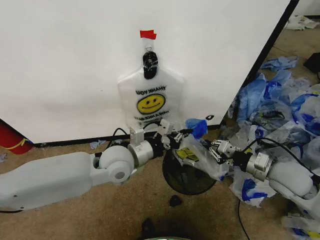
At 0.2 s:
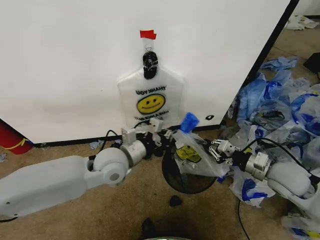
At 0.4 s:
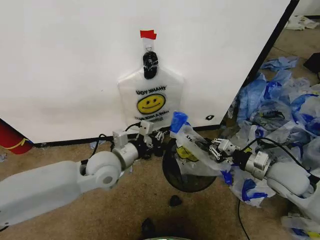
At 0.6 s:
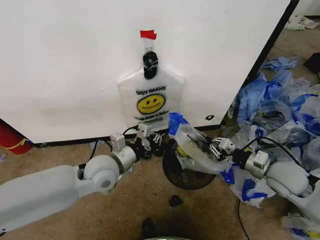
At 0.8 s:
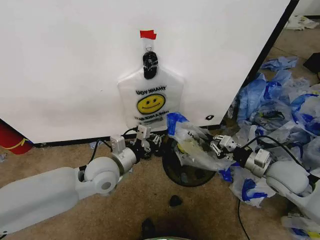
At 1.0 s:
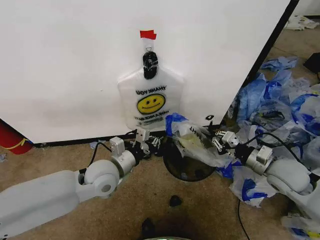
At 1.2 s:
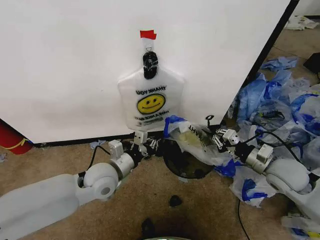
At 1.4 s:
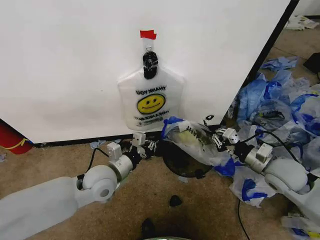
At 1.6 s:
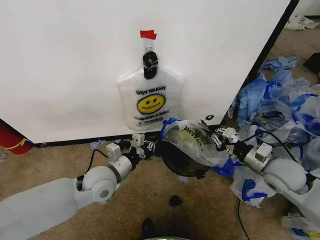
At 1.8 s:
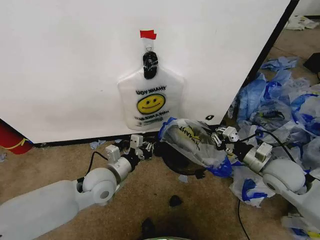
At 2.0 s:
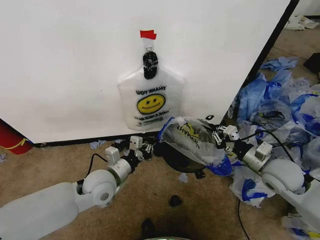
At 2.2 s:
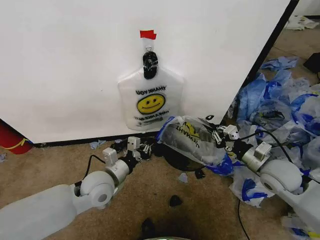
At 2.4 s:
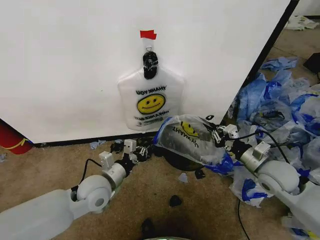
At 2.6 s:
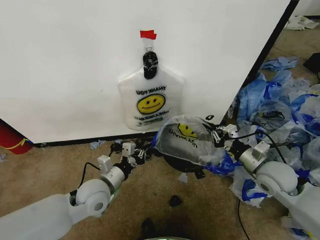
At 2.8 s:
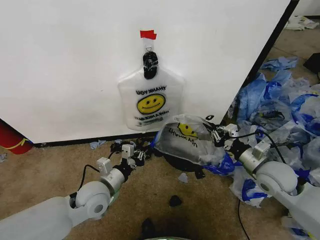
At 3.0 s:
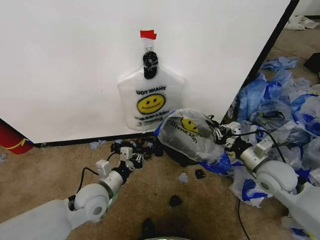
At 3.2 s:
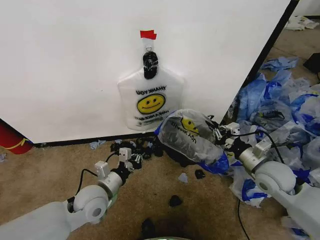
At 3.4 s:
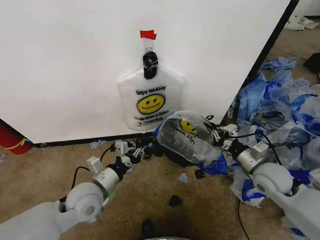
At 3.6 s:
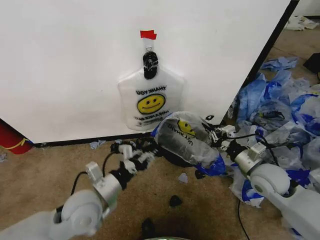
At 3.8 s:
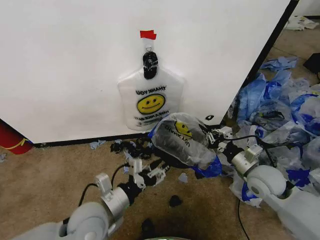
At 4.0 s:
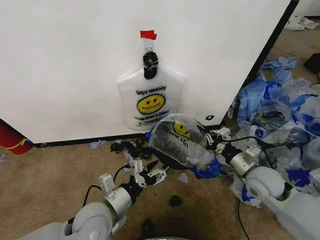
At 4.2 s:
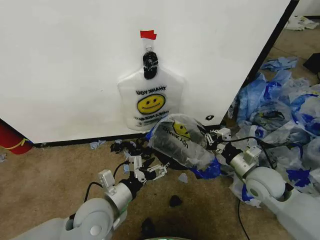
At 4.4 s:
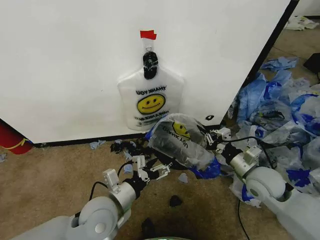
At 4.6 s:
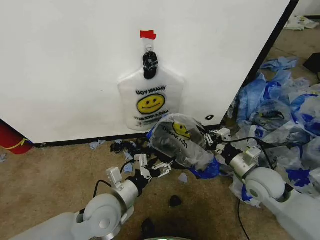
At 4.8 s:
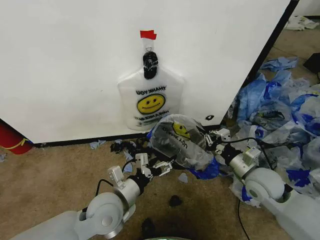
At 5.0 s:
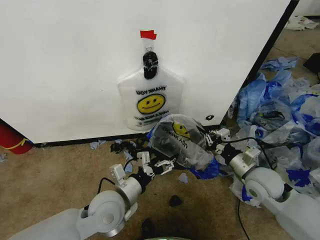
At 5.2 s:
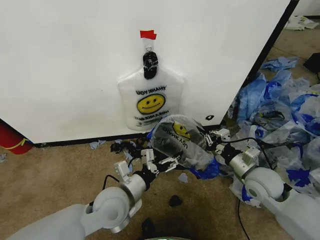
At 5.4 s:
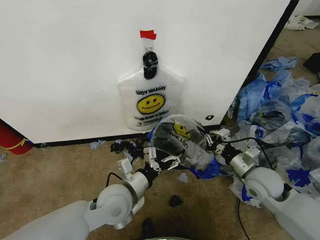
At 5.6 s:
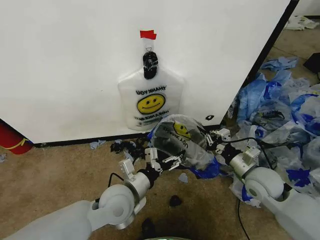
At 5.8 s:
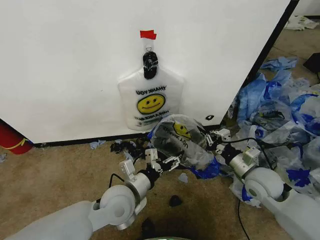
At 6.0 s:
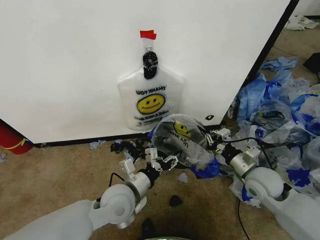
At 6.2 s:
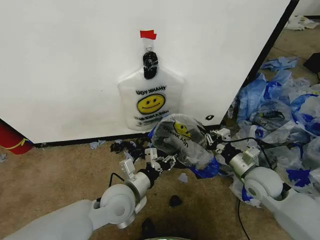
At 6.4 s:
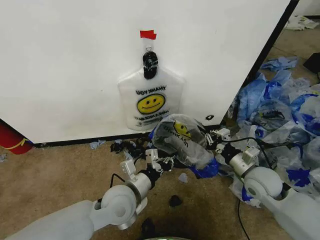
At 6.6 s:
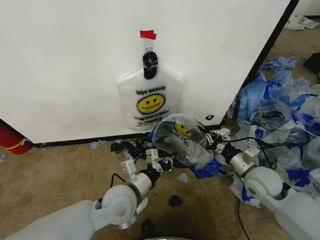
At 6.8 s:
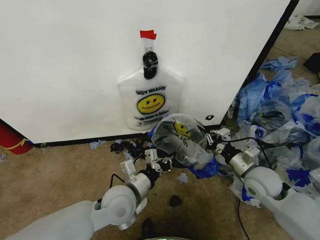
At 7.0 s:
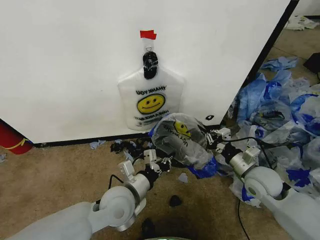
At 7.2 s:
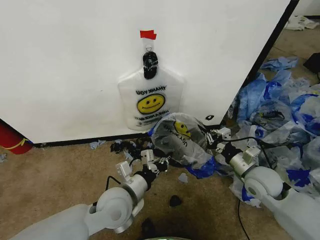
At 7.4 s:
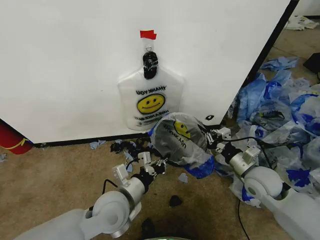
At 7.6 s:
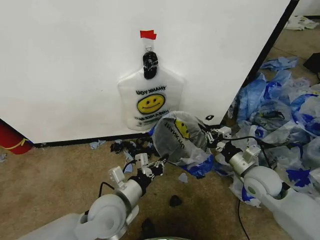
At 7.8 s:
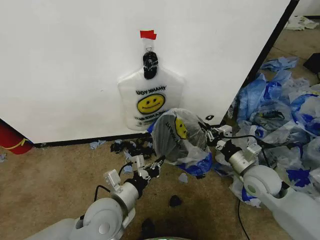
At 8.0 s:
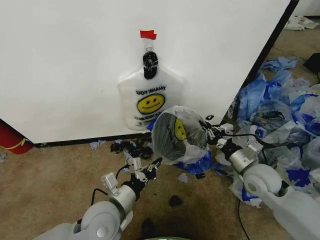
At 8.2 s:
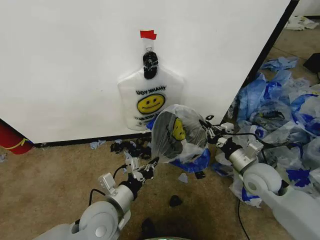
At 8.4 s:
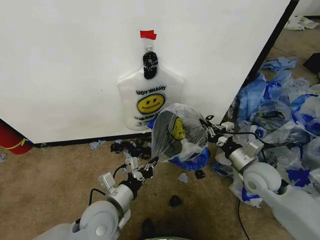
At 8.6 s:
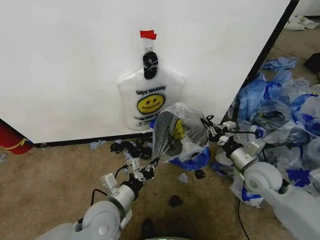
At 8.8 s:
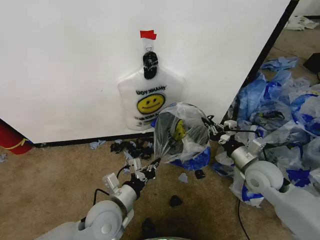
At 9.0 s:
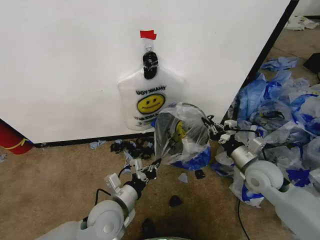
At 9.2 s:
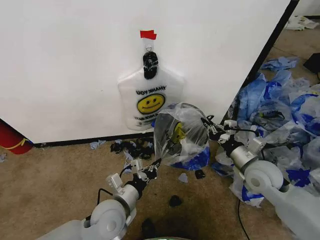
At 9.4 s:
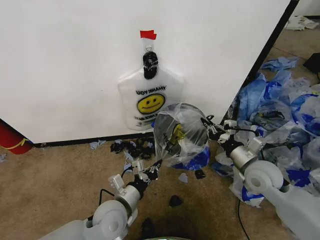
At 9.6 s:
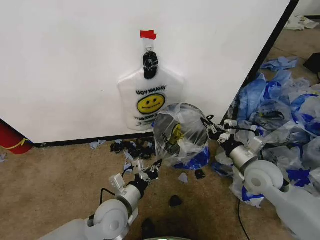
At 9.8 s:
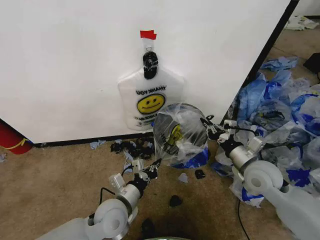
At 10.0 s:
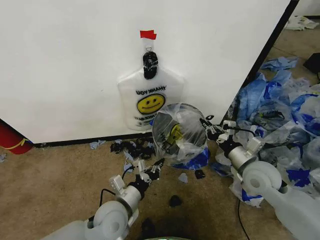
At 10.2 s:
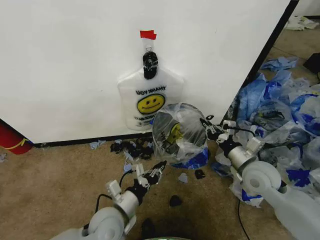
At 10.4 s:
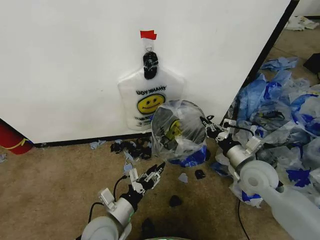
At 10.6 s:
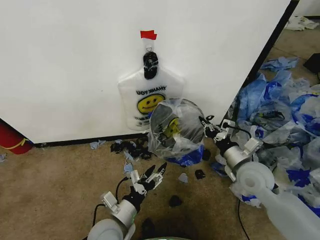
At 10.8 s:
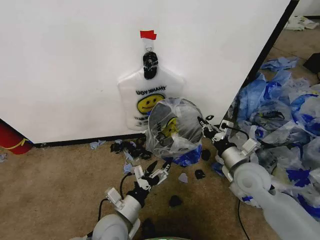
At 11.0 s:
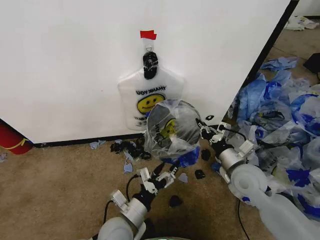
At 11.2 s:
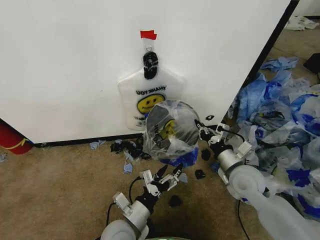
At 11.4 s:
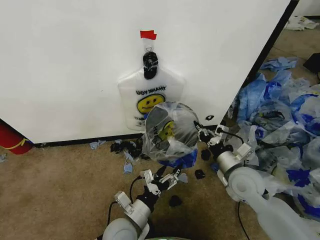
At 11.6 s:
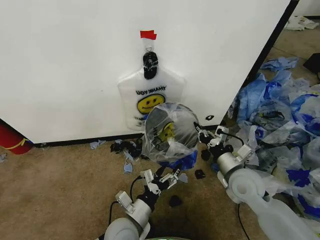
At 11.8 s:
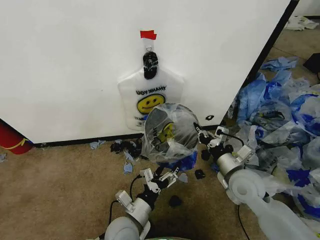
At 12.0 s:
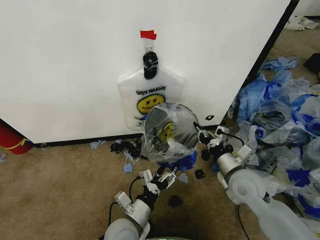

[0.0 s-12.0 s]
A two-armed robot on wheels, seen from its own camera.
Task of the whole recording: Pick up the garbage bag from the wall and place it over the trash bin.
0.0 to 1.6 s: The left gripper goes roughly 10 cm downward and to the left.
1.6 to 3.0 s: The left gripper ends up roughly 5 cm from where it was.
3.0 to 4.4 s: The left gripper travels backward by roughly 5 cm, and opens.
4.4 to 6.0 s: The left gripper ends up some 5 cm from where it was, and closes.
6.0 to 7.6 s: The left gripper closes.
7.6 to 9.0 s: The grippers make only small movements.
9.0 to 10.4 s: The left gripper opens.
10.4 to 12.0 s: The left gripper moves to the right, approximately 5 cm.

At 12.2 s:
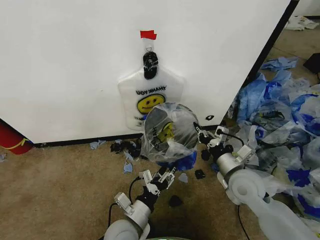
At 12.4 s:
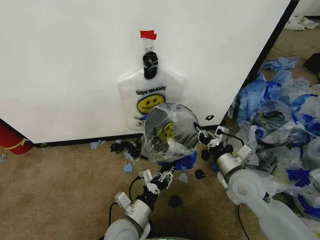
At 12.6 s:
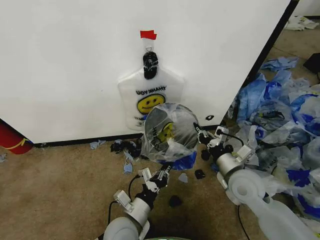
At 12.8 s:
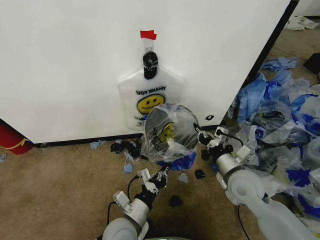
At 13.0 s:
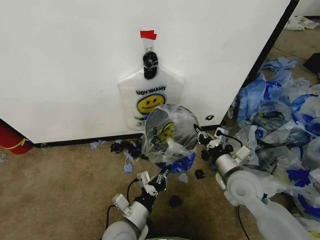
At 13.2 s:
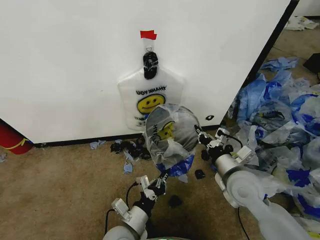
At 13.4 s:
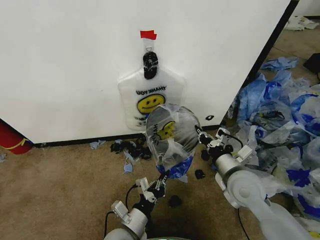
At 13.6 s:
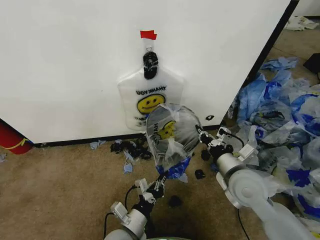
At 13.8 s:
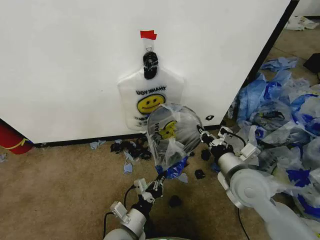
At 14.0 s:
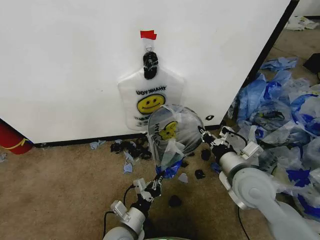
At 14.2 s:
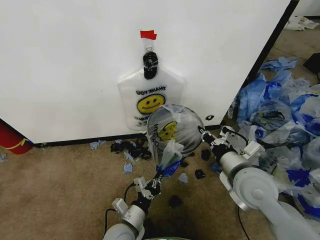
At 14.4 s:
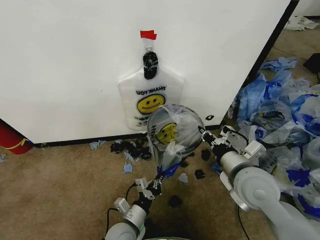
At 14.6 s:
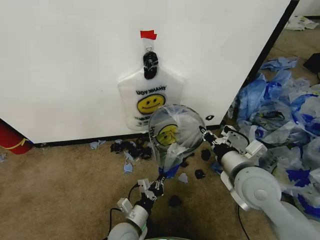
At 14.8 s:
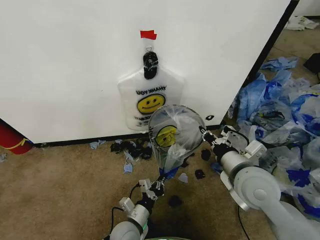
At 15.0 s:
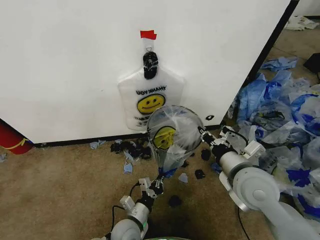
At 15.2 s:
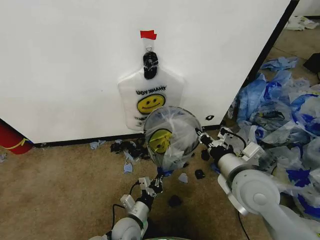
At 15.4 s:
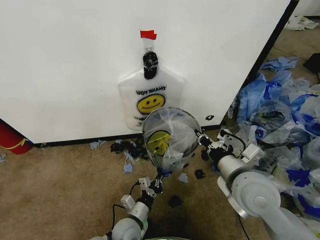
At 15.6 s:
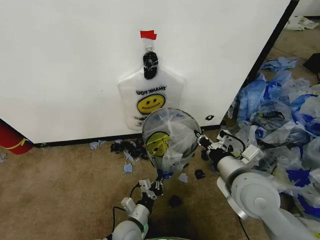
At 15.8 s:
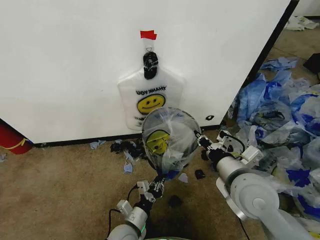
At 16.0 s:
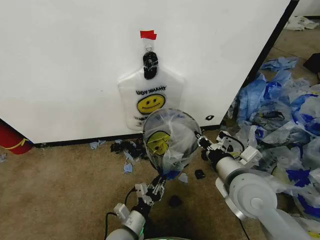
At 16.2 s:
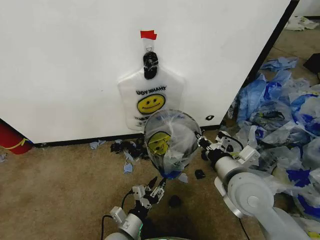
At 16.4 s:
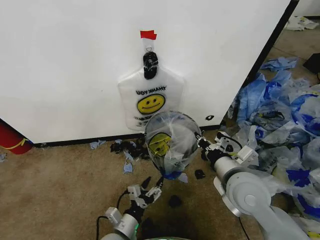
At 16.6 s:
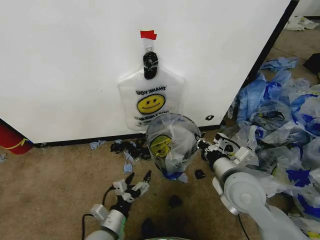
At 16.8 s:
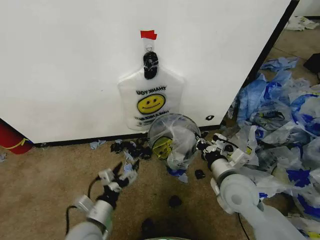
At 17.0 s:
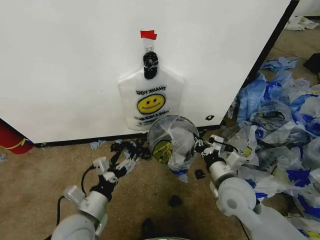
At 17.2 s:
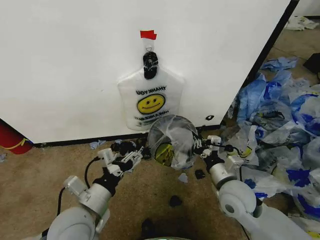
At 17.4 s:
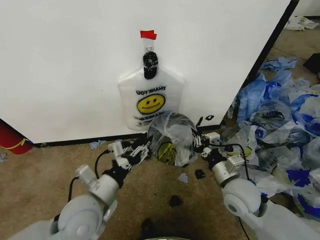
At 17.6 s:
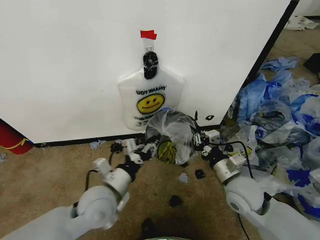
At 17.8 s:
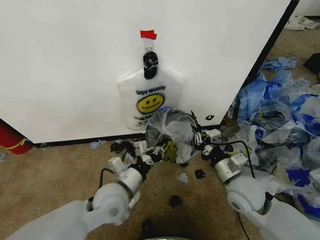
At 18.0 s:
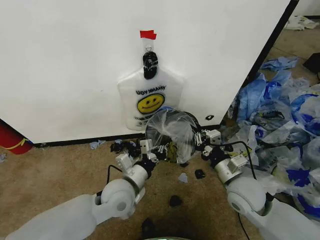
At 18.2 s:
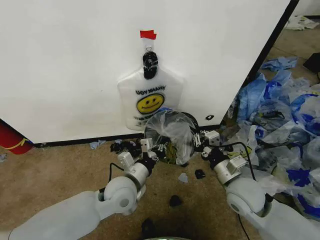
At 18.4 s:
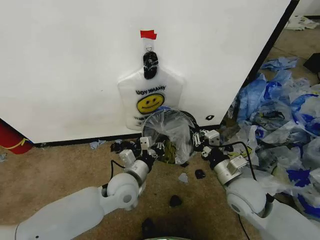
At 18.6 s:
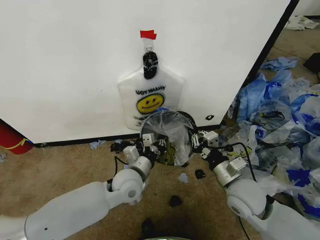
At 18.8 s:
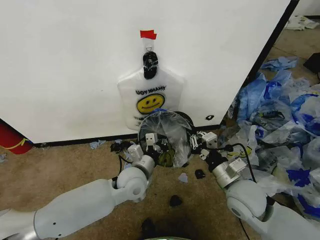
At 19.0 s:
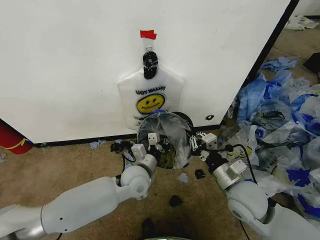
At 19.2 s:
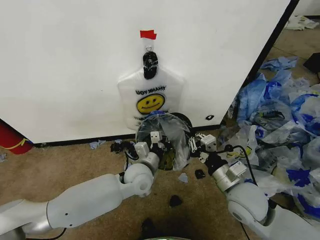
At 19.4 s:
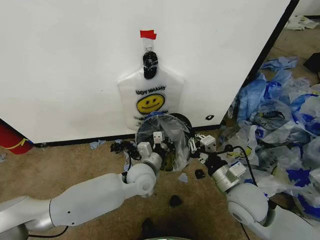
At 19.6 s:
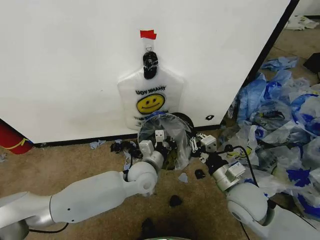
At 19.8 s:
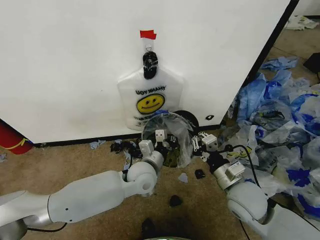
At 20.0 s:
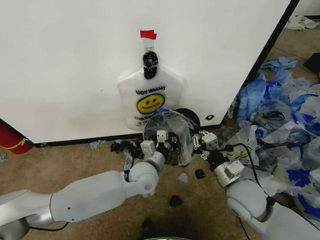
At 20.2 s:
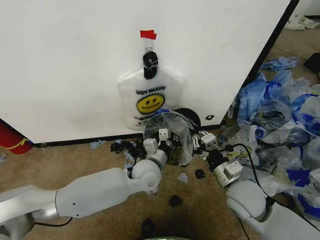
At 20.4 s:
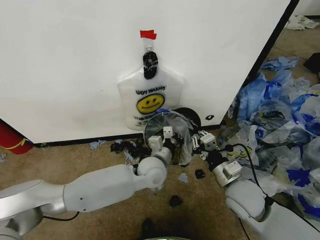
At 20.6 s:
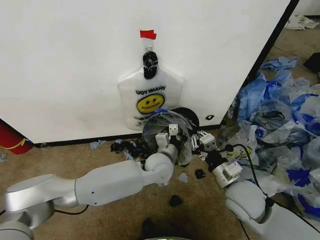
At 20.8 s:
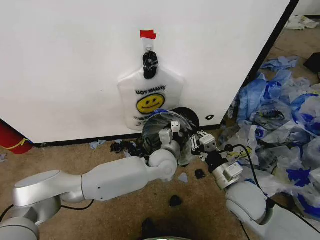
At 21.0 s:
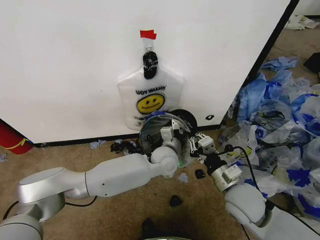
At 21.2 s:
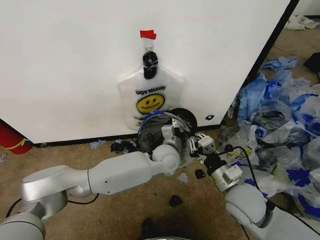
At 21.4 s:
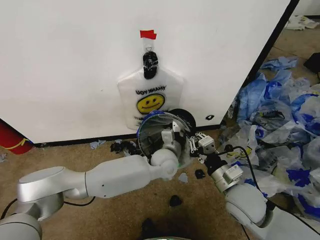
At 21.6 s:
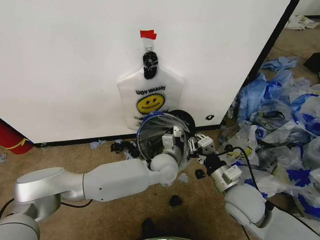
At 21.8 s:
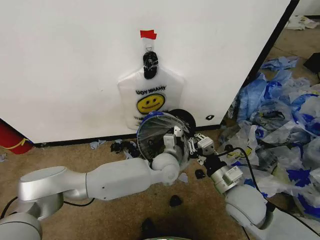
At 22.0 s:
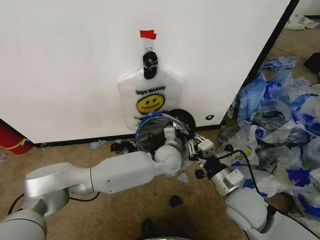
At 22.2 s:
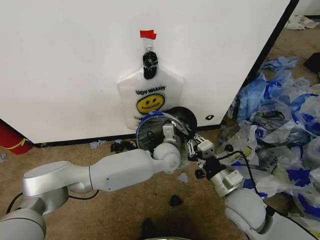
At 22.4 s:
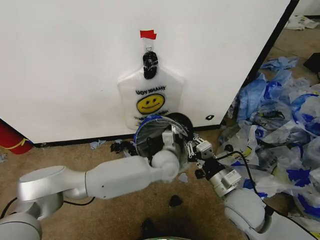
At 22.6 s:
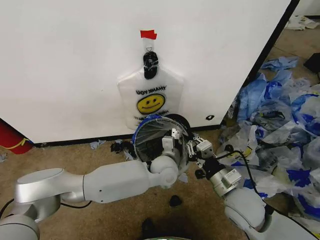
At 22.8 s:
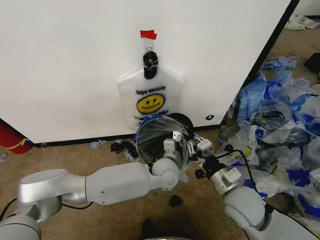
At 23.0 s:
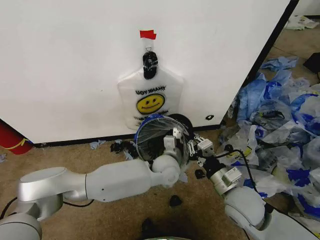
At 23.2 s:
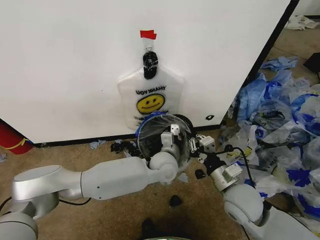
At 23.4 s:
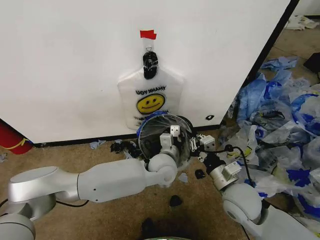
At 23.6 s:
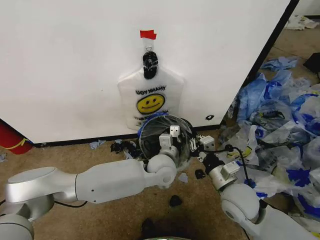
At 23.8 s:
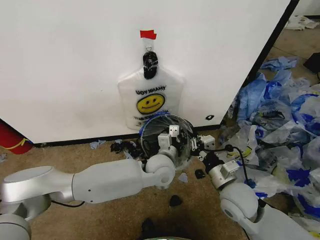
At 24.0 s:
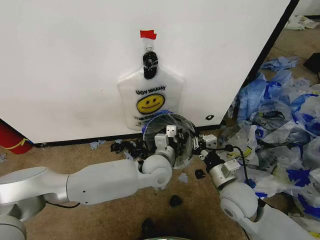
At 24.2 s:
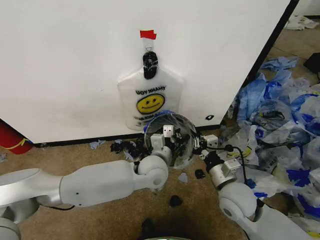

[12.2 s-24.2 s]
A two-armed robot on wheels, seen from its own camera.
Task of the whole recording: Pick up the garbage bag from the wall and place it over the trash bin.
12.2 to 13.8 s: The left gripper closes its fingers.
13.8 to 15.2 s: The left gripper goes about 5 cm downward.
15.2 to 16.6 s: The left gripper shifts about 10 cm to the left and upward, and opens up.
16.6 to 18.2 s: The right gripper moves downward, some 5 cm, while the left gripper goes approximately 15 cm forward, upward and to the right, and closes up.
18.2 to 19.8 s: The left gripper is displaced to the right and forward by some 10 cm.
19.8 to 21.2 s: The left gripper is displaced to the right and forward by roughly 10 cm.
21.2 to 22.6 s: The grippers make only small movements.
22.6 to 24.2 s: The left gripper shifts by approximately 5 cm.
